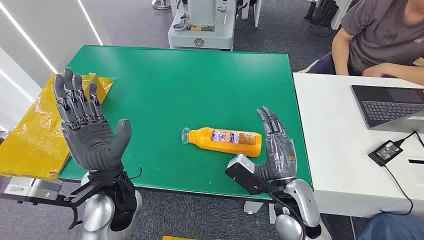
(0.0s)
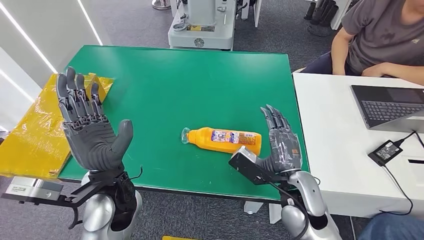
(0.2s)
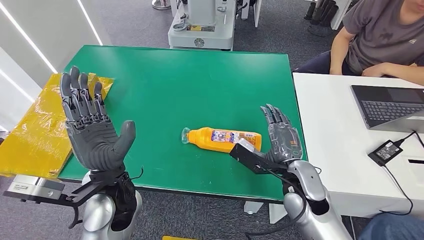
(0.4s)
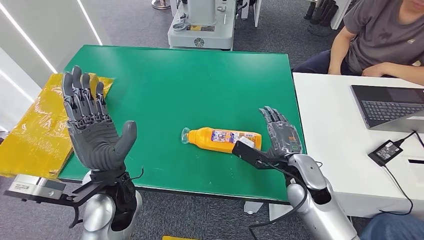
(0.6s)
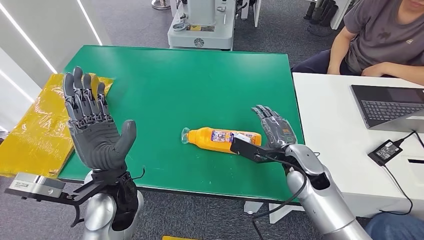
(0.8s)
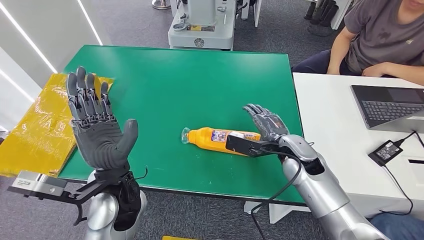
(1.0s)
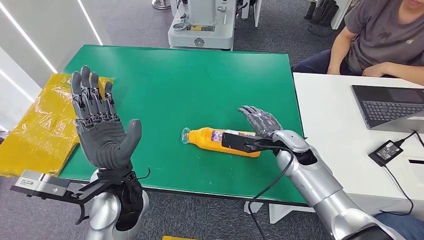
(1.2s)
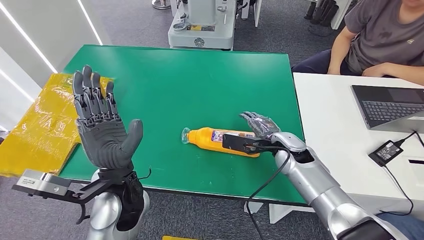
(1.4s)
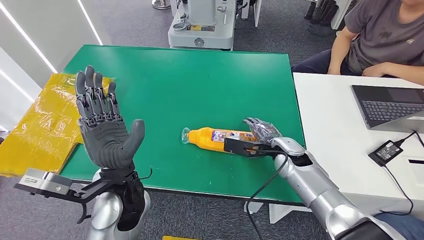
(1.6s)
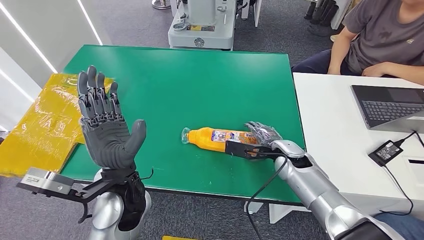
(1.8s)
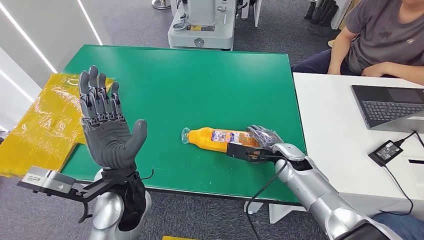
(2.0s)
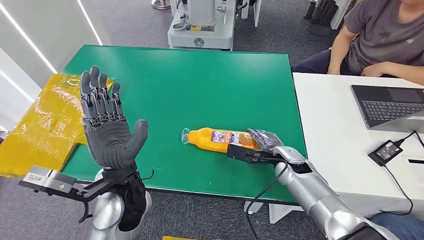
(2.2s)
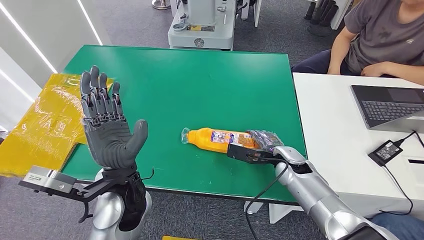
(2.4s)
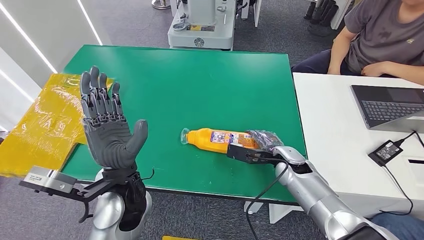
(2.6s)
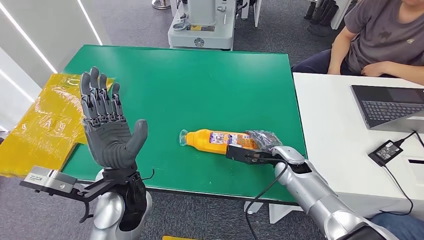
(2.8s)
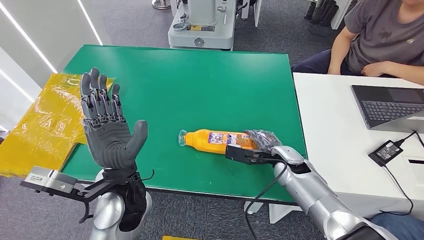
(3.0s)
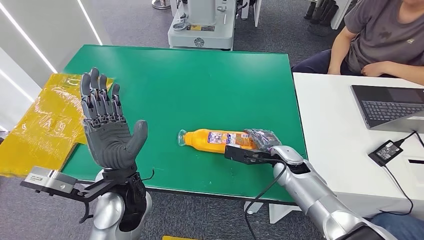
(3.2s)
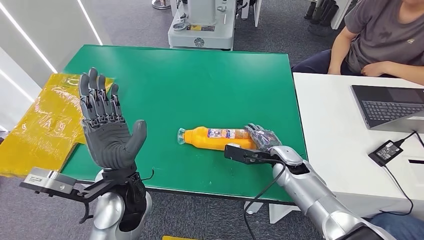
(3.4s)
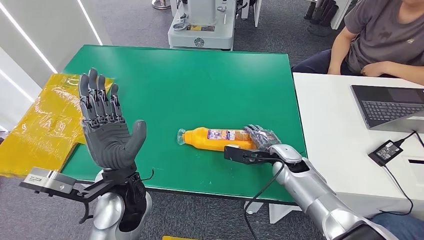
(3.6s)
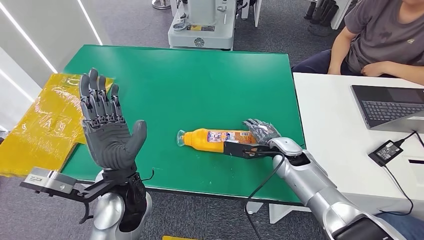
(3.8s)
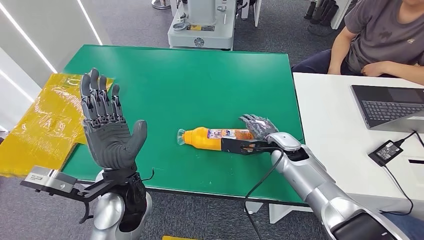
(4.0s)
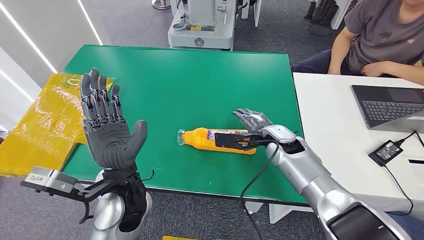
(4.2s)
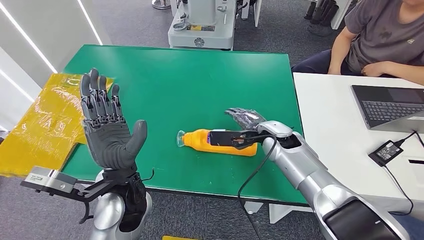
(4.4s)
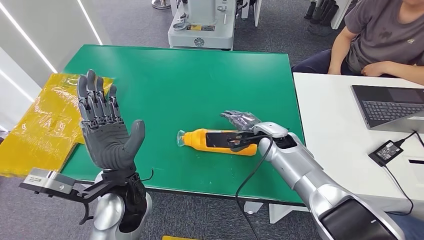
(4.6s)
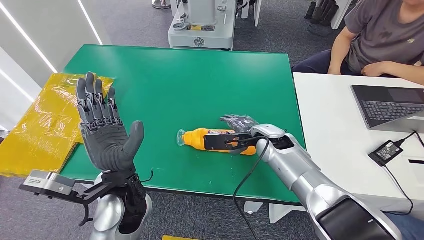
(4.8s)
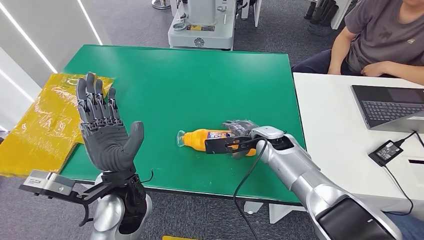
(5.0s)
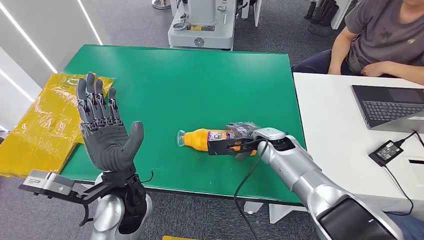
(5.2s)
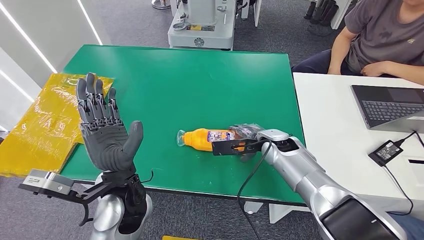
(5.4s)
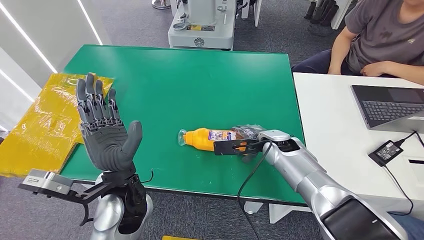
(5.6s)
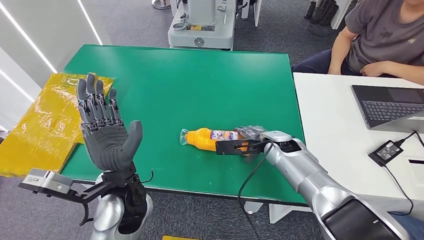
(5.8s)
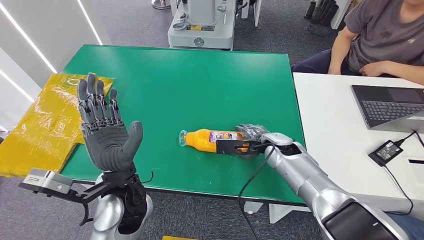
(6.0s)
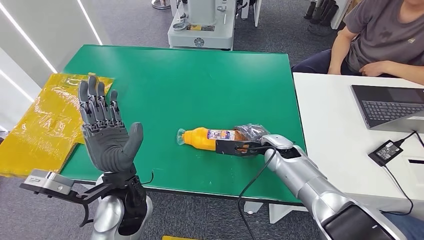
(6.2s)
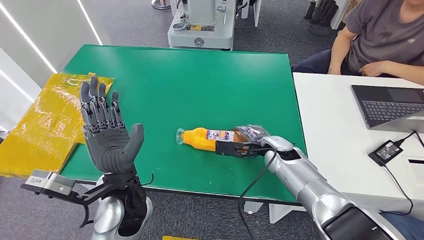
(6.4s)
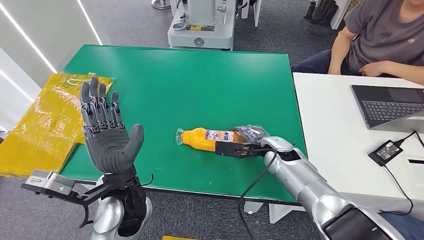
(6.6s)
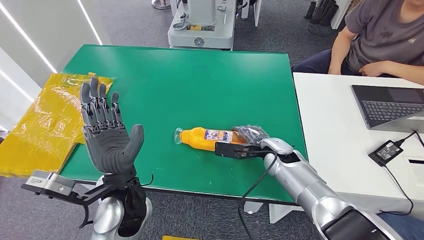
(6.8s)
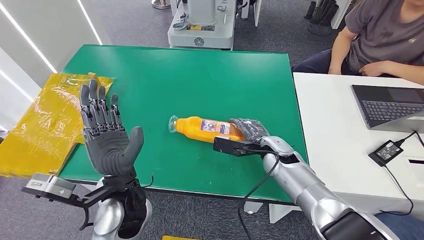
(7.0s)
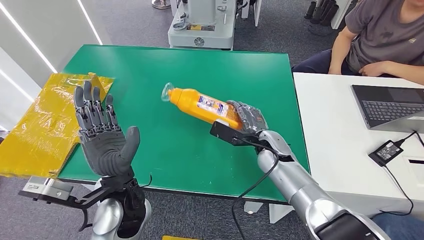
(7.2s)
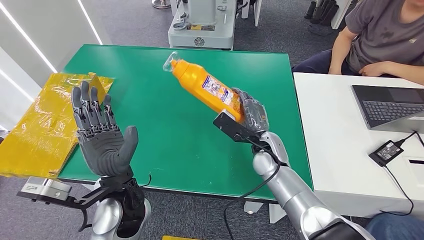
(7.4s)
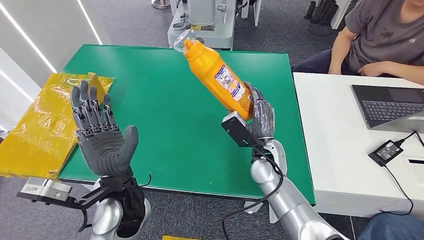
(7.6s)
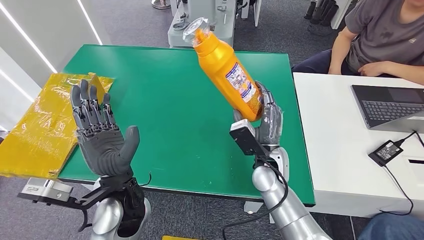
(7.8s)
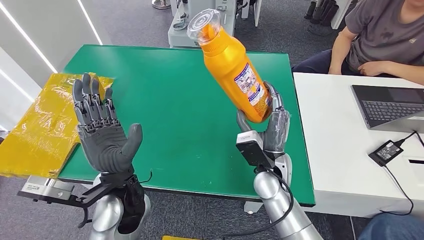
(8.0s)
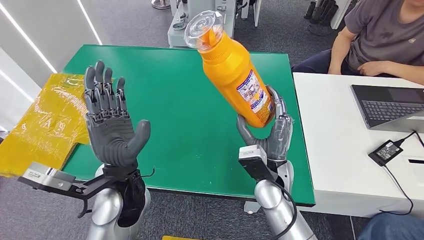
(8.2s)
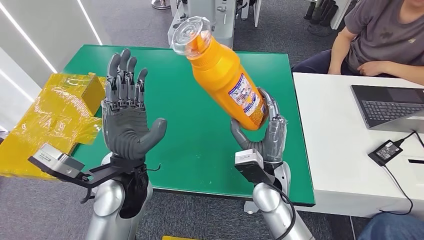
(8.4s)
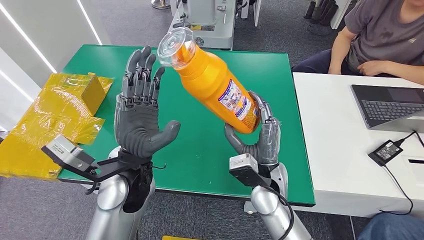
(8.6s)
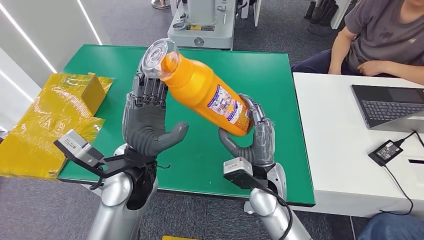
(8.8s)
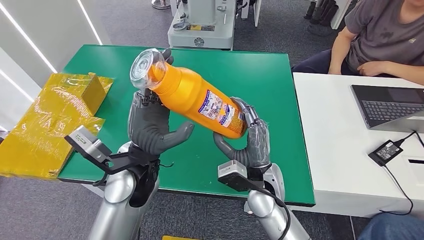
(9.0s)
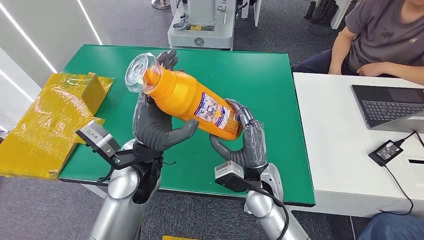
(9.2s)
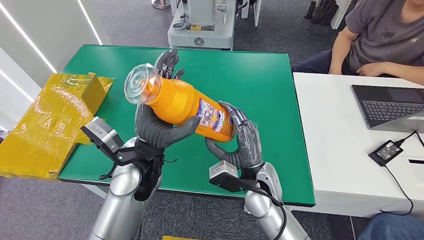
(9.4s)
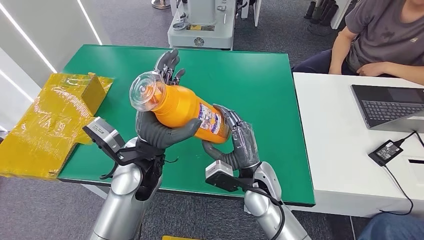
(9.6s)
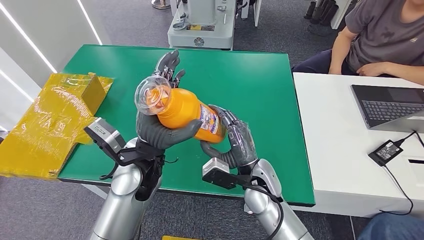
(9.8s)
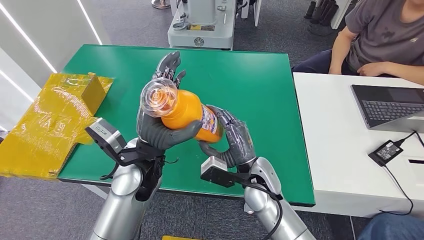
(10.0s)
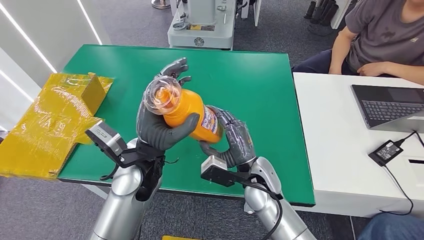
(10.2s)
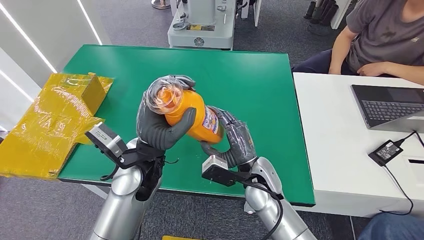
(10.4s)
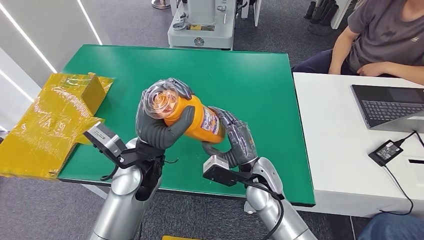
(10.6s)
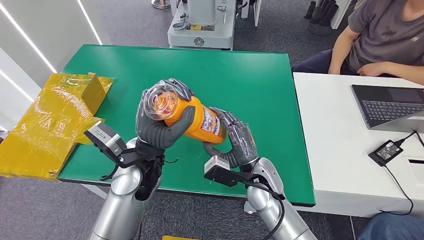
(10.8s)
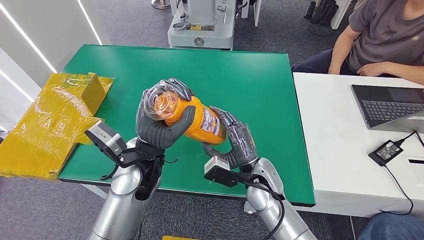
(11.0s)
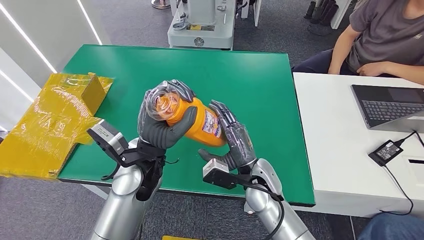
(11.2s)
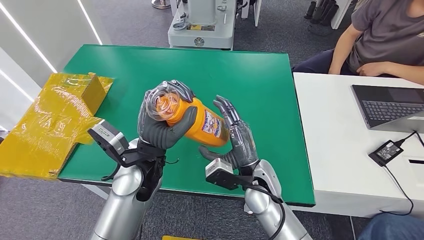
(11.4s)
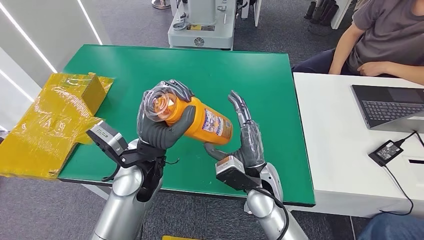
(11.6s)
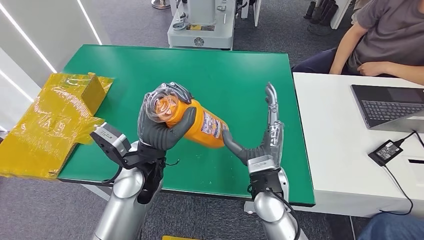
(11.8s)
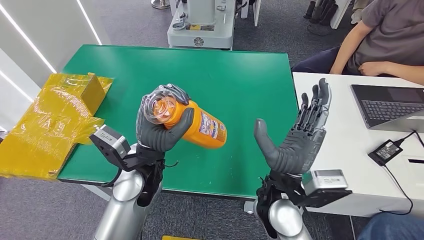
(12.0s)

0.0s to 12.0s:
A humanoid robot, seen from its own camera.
Step, 0.0s to 7.6s: Pick up the bottle from the table.
1.6s to 3.0s: The hands move only a little.
3.0s to 4.4s: The right hand goes some 10 cm upward and forward.
4.4s to 6.0s: There are only small adjustments of the hands.
6.0s to 7.6s: The right hand is displaced to the left by approximately 10 cm.
10.4s to 12.0s: The right hand heads upward, covering about 10 cm.

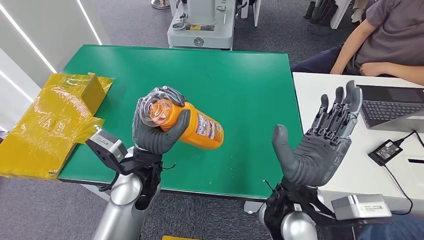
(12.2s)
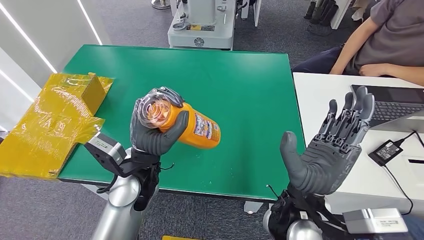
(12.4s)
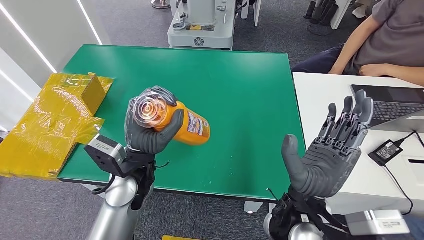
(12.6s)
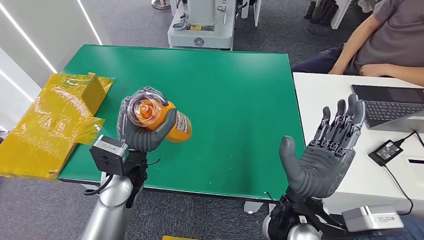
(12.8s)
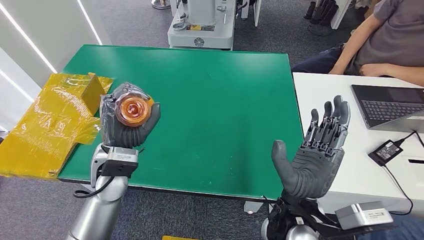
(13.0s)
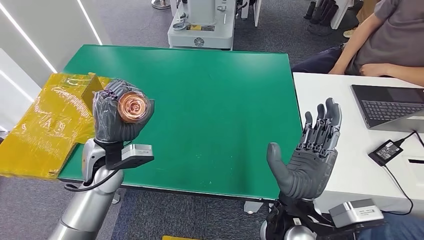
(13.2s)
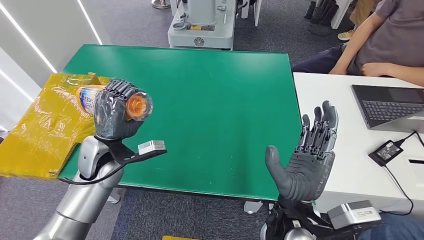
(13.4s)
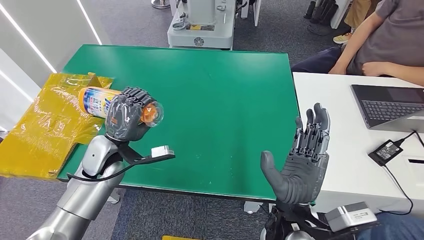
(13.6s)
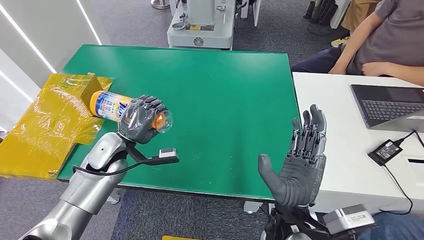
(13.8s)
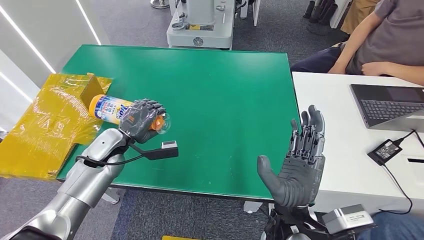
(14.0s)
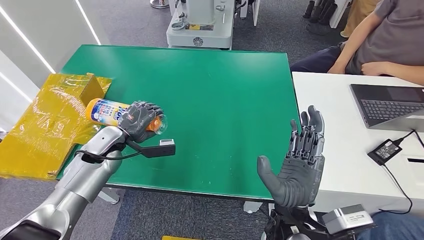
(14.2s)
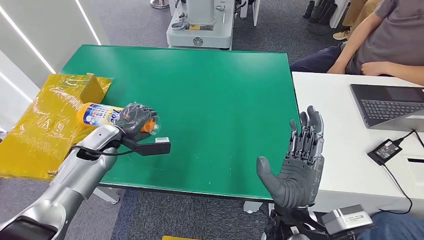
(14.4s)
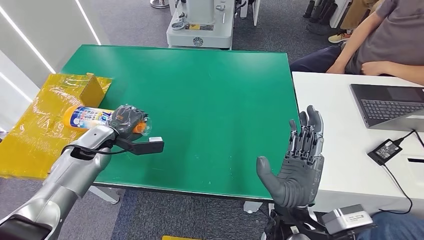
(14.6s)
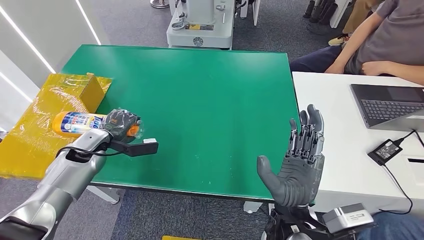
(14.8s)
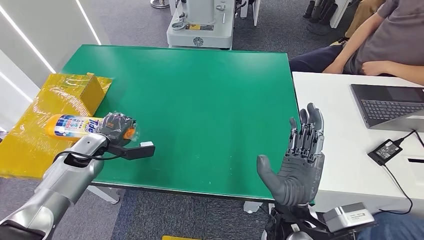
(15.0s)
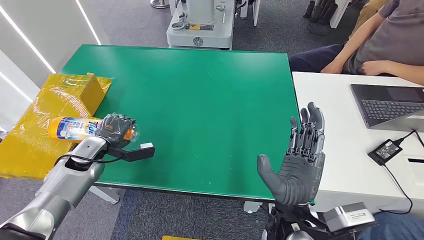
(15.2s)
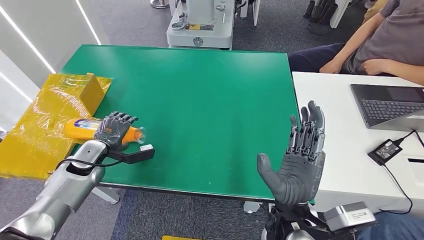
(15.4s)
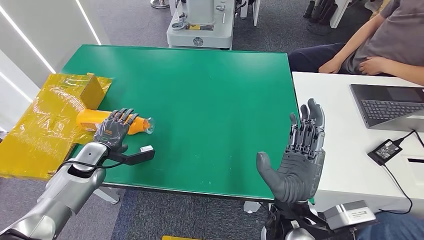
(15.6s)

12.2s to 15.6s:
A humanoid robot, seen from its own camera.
Step, 12.2s to 15.6s: Turn the bottle to the front side.
13.8s to 15.6s: The left hand heads to the left, covering approximately 10 cm.

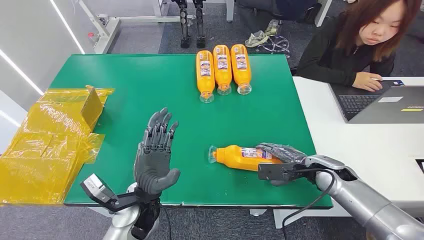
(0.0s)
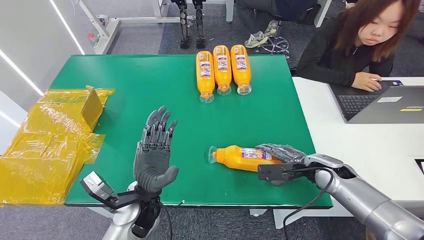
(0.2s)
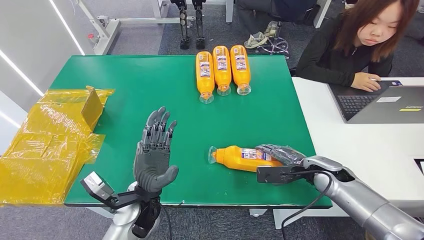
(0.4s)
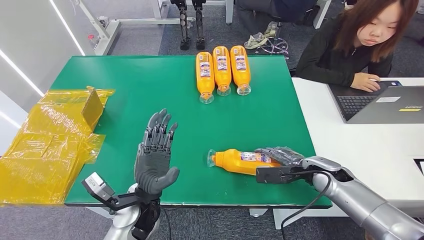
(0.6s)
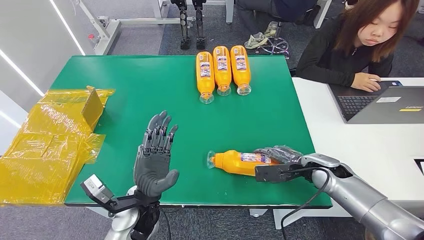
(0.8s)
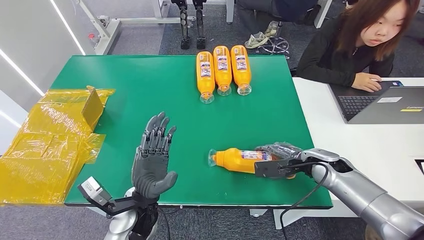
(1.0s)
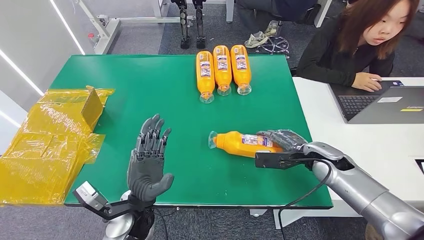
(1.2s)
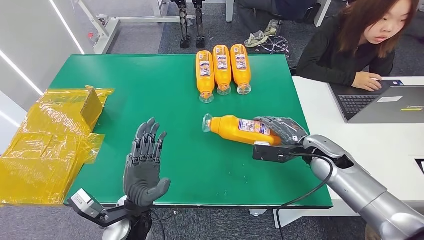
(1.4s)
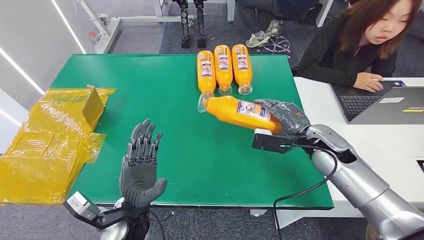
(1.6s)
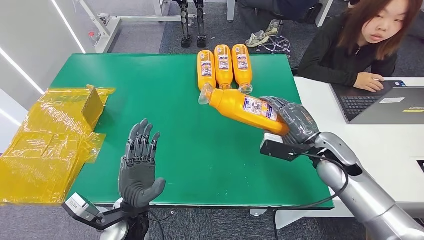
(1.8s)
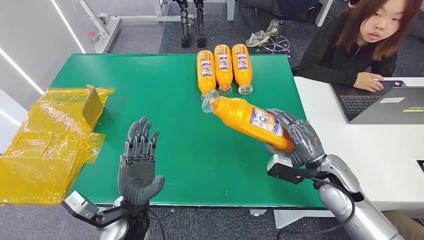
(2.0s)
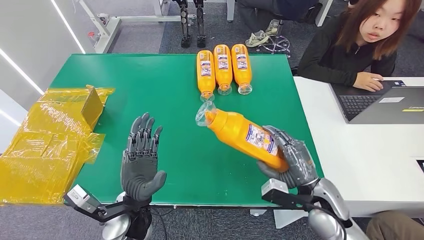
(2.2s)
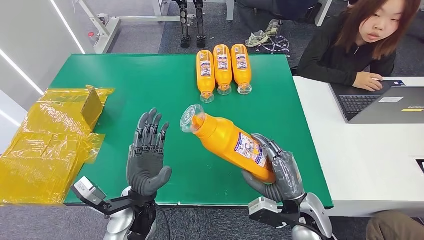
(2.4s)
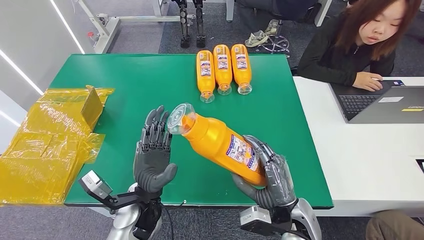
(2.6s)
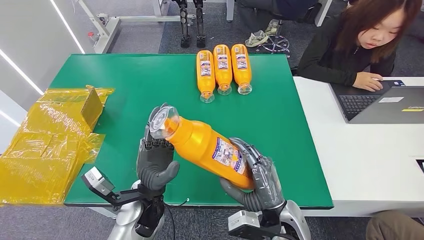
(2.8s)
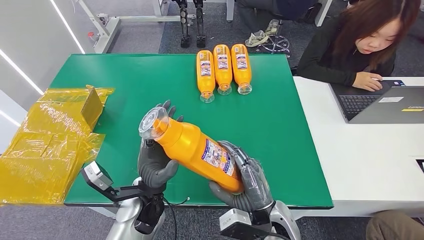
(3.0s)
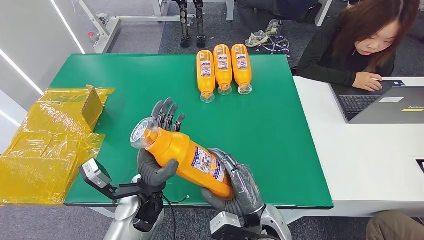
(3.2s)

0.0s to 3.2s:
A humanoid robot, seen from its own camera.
Step, 0.0s to 2.0s: Pick up the bottle from the table.
